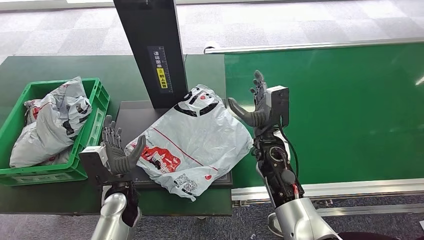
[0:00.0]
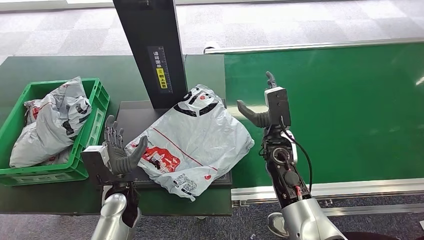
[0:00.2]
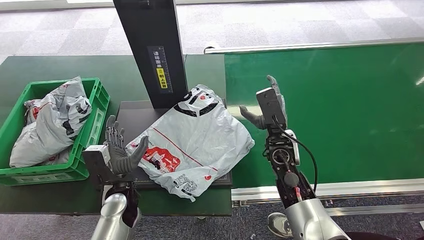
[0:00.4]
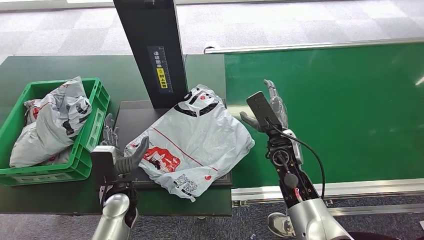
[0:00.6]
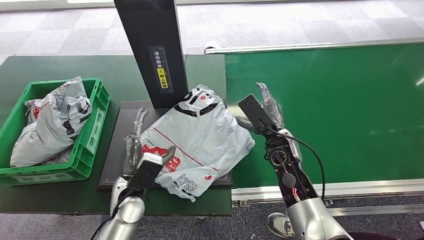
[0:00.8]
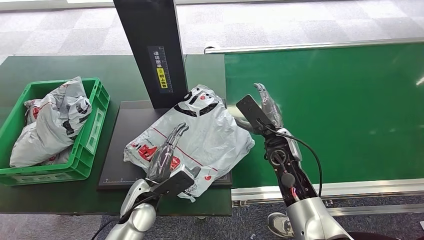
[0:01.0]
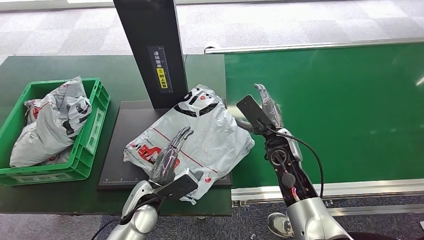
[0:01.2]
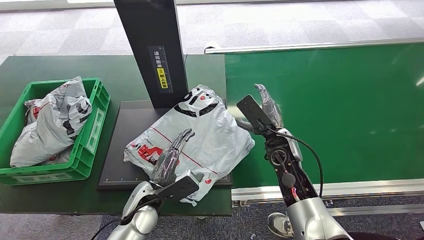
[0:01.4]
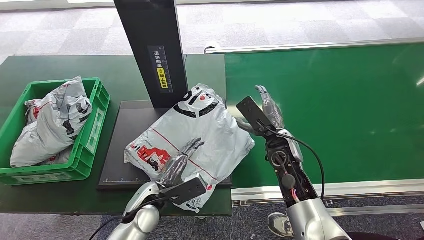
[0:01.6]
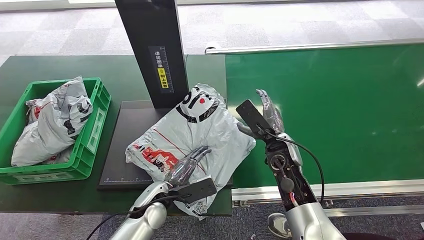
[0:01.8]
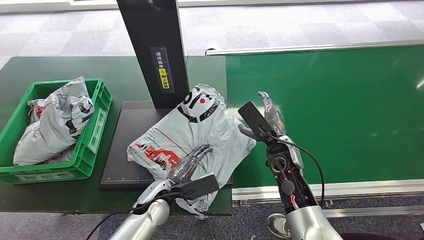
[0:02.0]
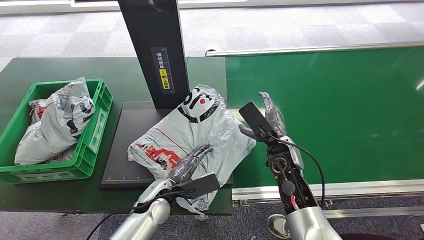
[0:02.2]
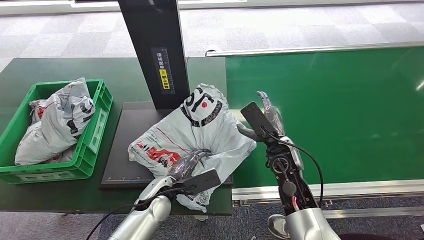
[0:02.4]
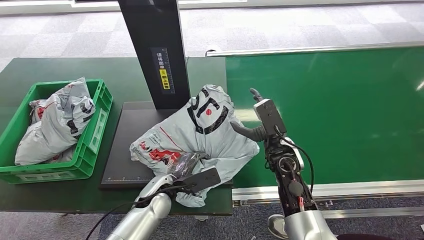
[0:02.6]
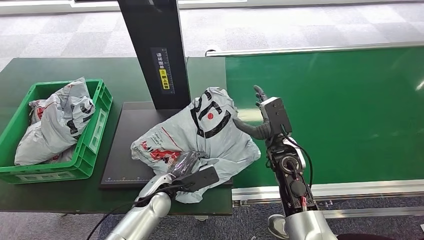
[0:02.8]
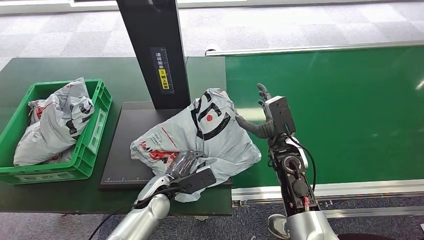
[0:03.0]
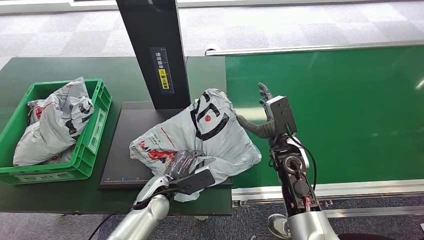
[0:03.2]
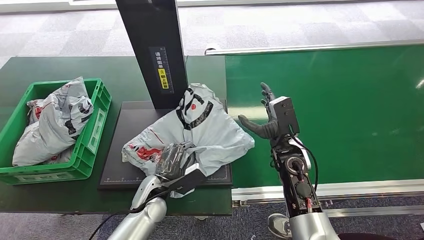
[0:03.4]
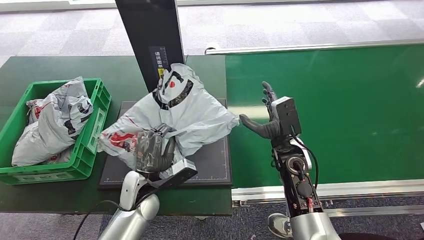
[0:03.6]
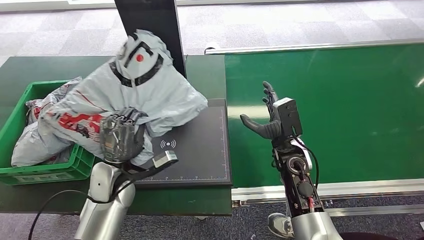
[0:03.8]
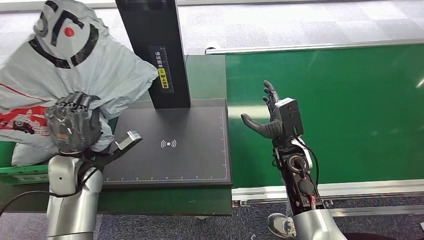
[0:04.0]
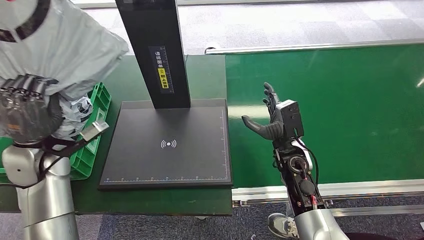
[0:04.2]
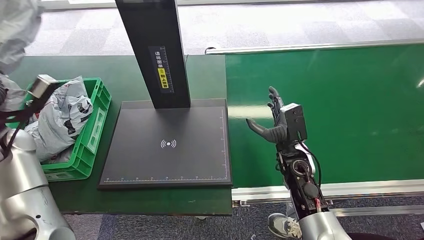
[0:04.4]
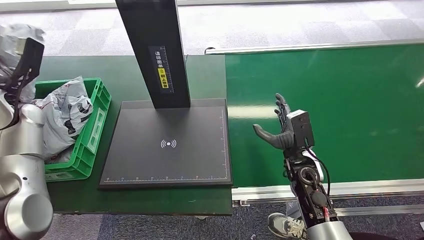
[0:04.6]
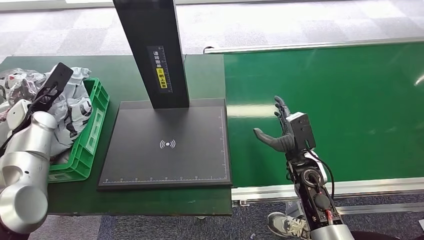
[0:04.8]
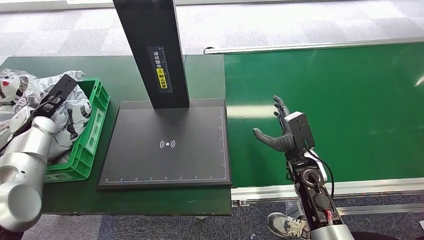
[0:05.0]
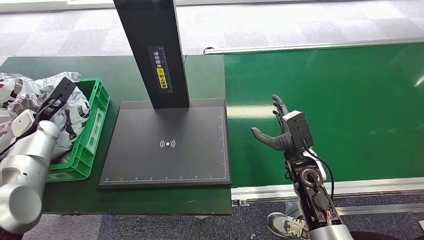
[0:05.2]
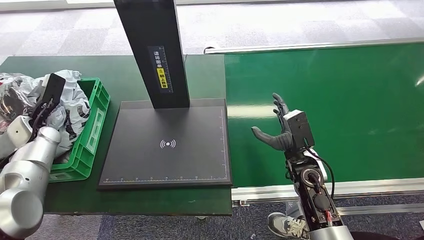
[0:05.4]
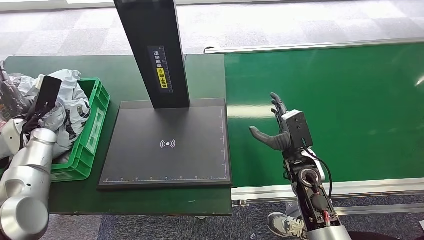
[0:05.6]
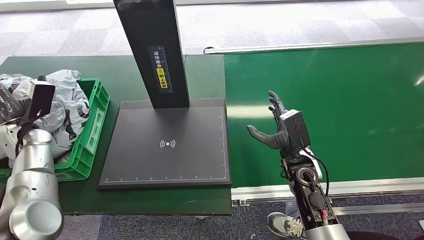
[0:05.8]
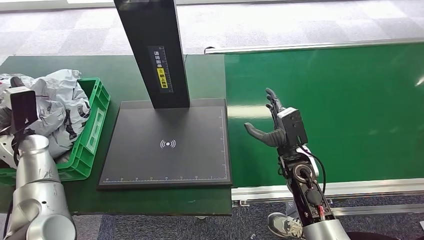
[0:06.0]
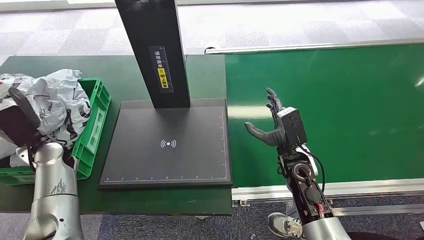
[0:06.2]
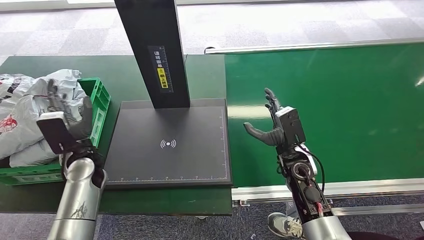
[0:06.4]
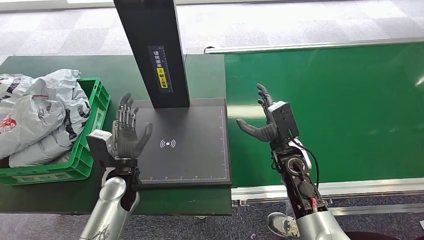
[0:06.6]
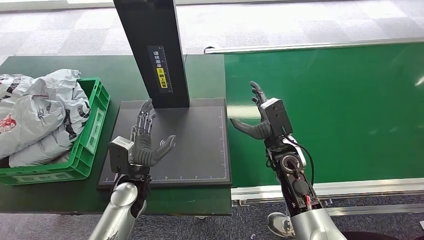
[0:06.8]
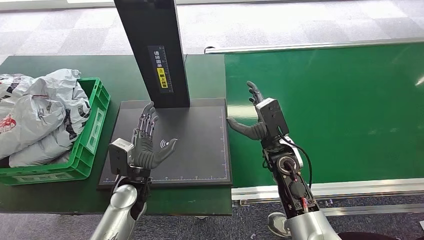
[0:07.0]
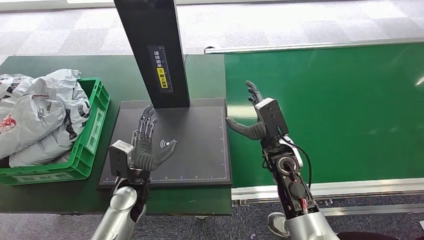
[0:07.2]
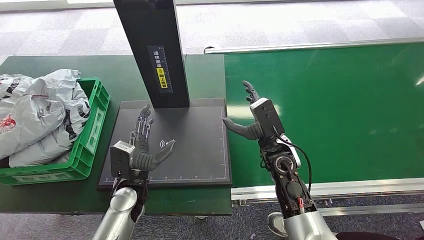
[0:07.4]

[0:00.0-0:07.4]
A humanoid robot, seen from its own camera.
Step, 0:00.0 to 0:04.4: Pick up the package from the inbound machine.
Step, 0:04.6 to 0:07.4: Place the package into the parcel locker.
0:00.0 to 0:01.4: The left hand shifts some 5 cm to the right.
0:04.4 to 0:06.0: The left hand heads downward, covering roughly 5 cm.
0:06.0 to 0:07.4: The right hand travels to the left by some 5 cm. Meanwhile the left hand moves to the right, about 25 cm.
